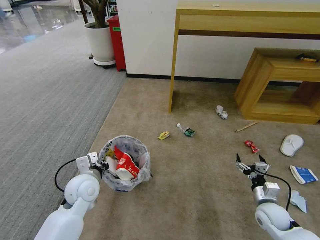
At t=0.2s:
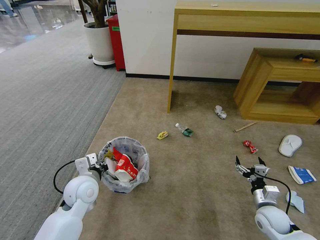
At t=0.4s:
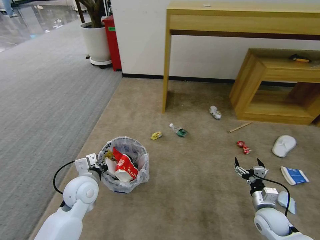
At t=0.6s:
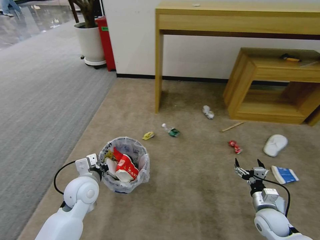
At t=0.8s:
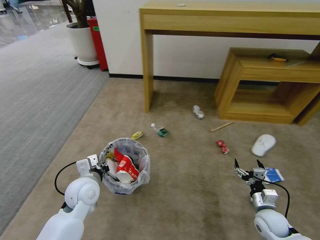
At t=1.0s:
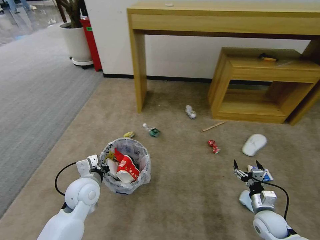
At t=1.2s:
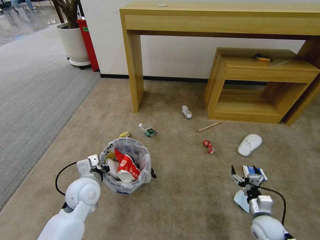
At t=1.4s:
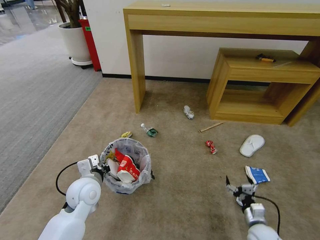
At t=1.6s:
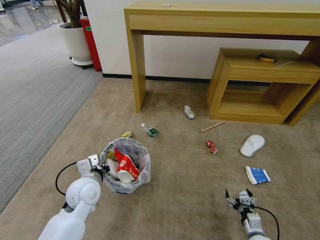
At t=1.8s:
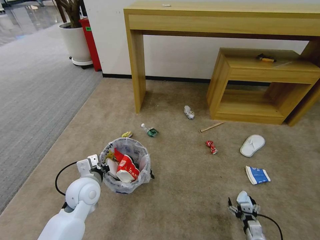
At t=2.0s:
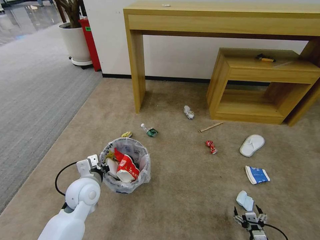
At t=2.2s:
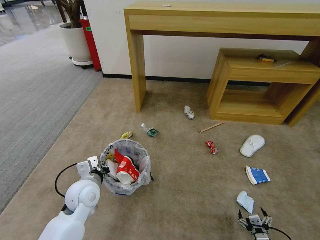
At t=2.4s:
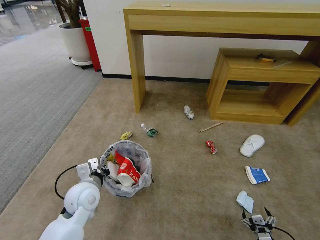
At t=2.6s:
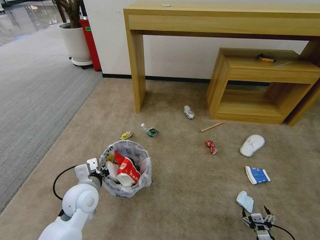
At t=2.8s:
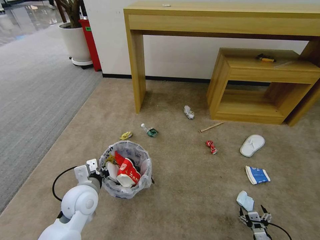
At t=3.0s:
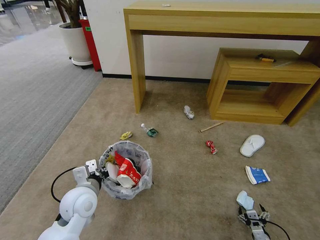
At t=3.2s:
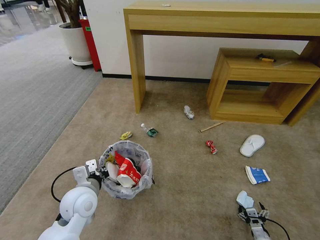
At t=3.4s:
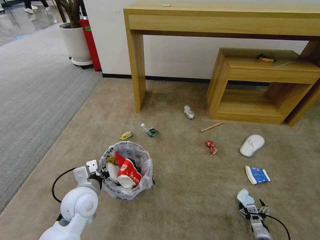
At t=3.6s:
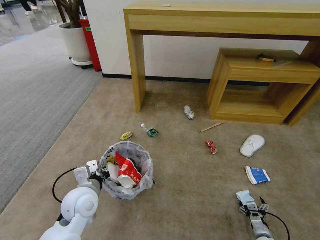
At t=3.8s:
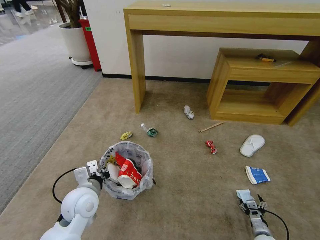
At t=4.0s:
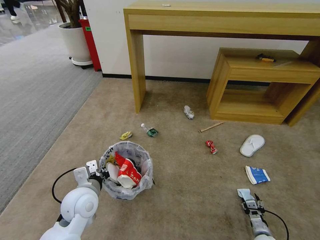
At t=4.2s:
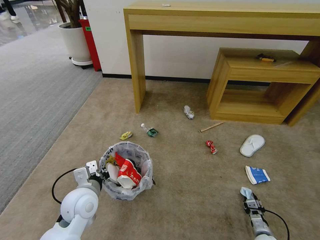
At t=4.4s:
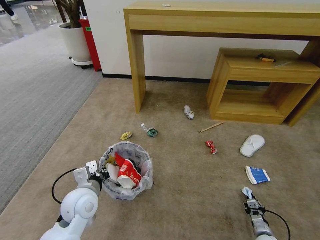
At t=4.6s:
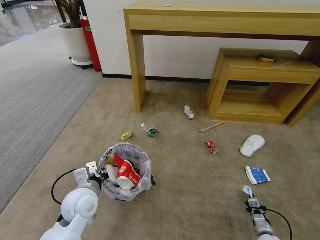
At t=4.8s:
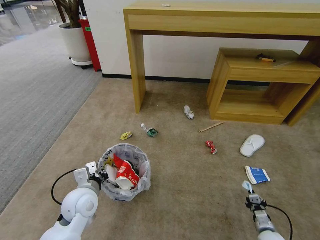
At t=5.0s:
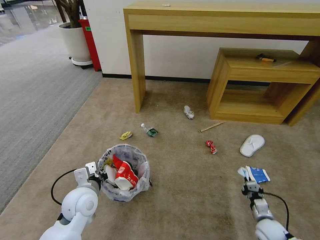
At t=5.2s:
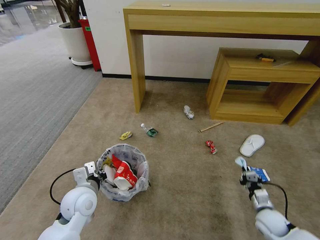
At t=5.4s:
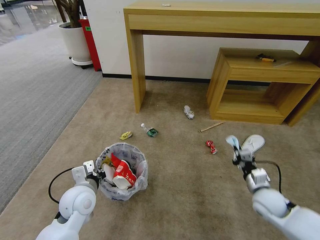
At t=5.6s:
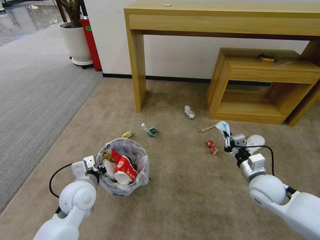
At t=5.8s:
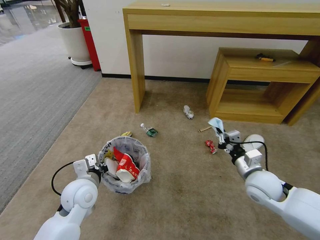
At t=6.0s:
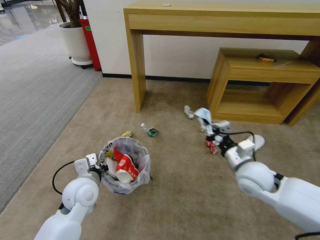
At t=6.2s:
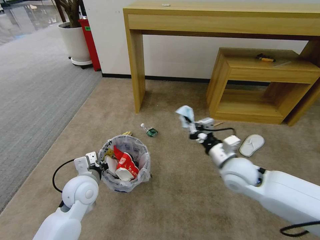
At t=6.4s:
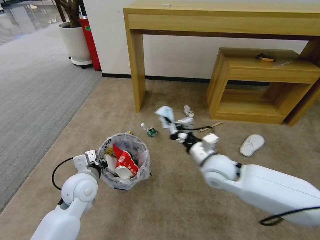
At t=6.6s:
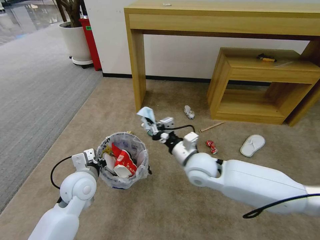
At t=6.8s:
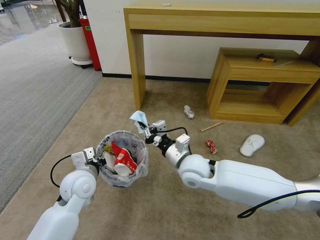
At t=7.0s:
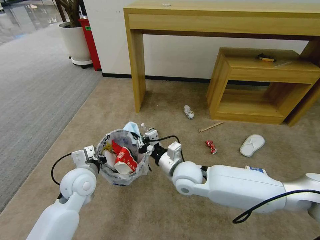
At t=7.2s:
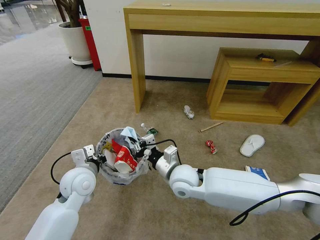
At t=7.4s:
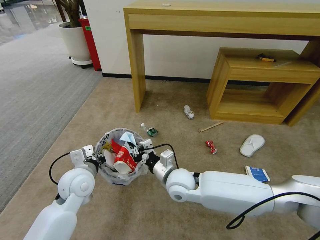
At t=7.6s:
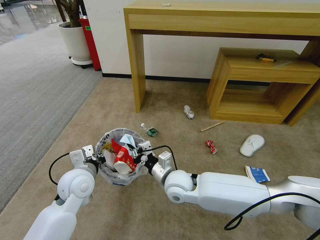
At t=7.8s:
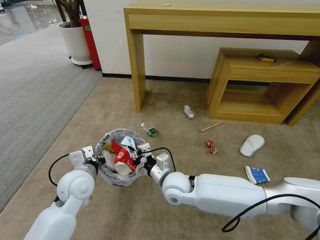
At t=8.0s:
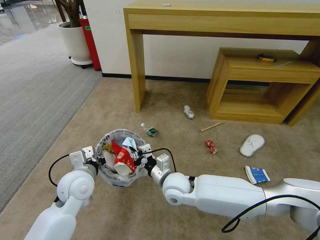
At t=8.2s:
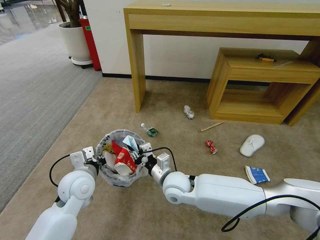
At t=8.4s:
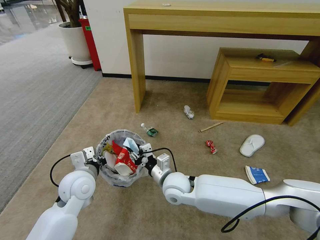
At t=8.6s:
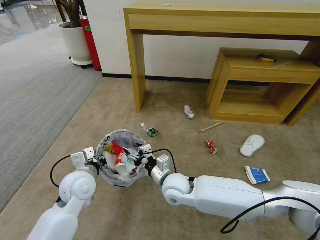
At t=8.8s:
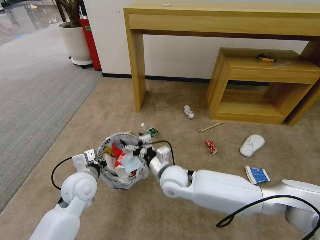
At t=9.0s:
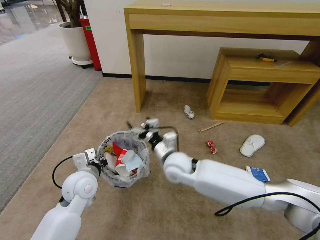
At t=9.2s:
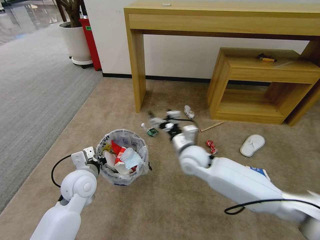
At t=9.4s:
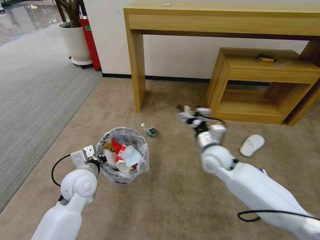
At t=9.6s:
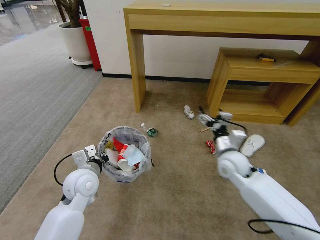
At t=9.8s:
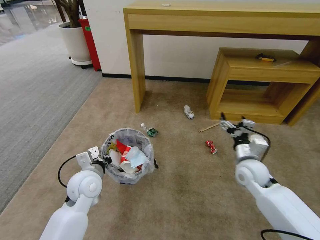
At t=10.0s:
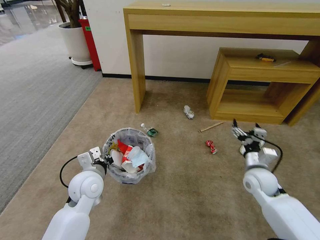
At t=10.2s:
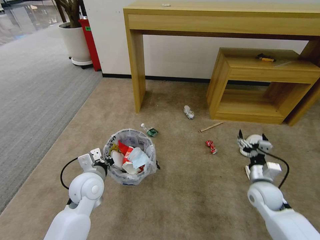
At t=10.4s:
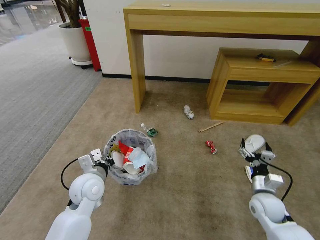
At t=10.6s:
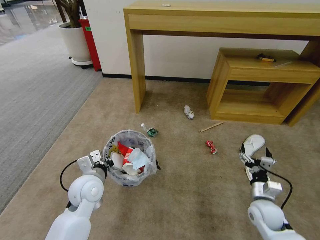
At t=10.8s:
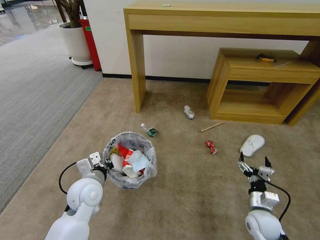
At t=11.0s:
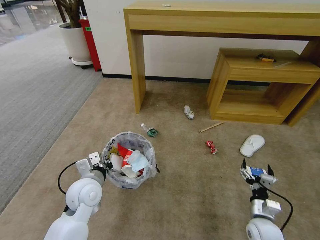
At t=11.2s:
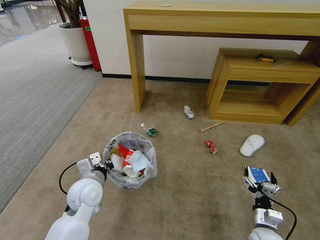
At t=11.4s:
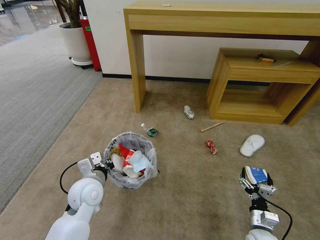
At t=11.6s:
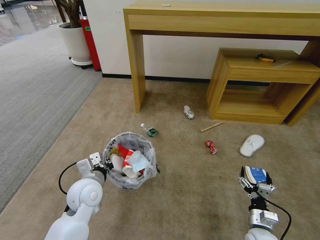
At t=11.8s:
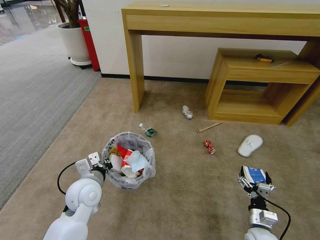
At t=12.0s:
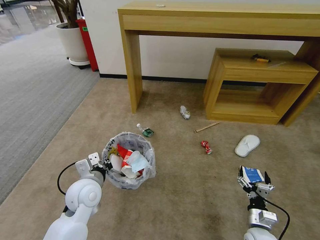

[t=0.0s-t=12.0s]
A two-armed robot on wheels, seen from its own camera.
Task of the whole recording: Pick up the trash bin and place the garbage on the floor into it.
t=0.0s to t=1.6s: The right gripper heads downward and backward, covering some 15 cm.
t=1.6s to t=3.0s: The right gripper moves downward, approximately 5 cm.
t=3.0s to t=4.4s: The right gripper shifts by roughly 5 cm, and closes its fingers.
t=4.4s to t=6.0s: The right gripper travels upward and to the left by about 40 cm.
t=6.0s to t=7.6s: The right gripper travels to the left by roughly 20 cm.
t=7.6s to t=9.0s: The right gripper changes place by roughly 5 cm, and opens.
t=9.0s to t=10.4s: The right gripper travels to the right by approximately 30 cm.
t=10.4s to t=12.0s: The right gripper heads downward and backward, covering approximately 15 cm.

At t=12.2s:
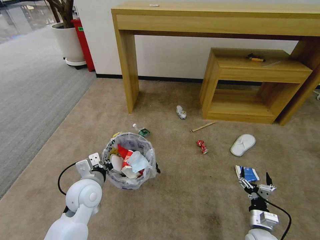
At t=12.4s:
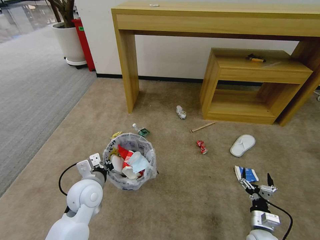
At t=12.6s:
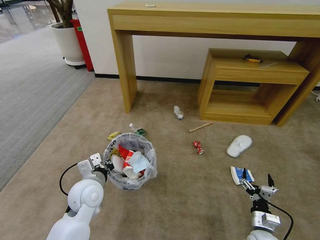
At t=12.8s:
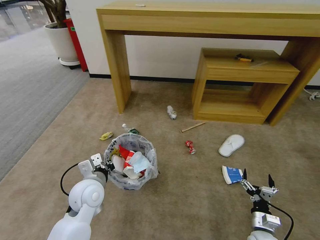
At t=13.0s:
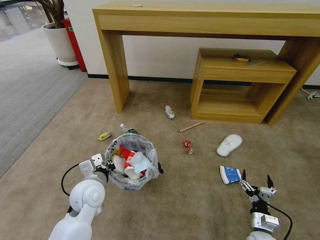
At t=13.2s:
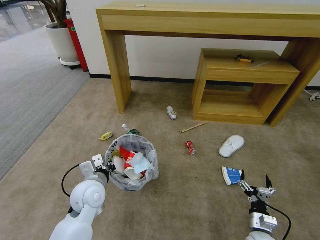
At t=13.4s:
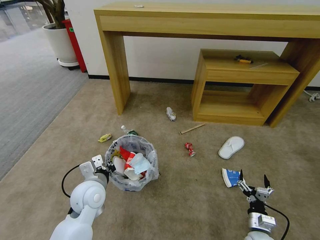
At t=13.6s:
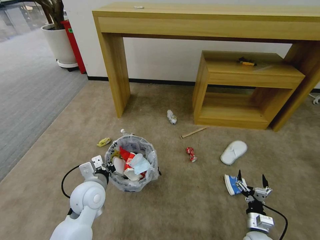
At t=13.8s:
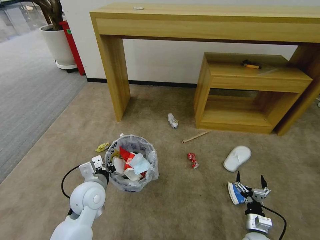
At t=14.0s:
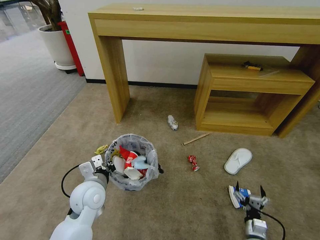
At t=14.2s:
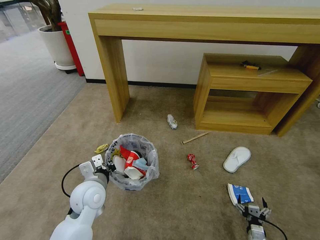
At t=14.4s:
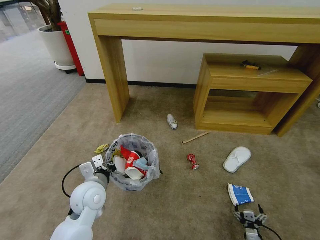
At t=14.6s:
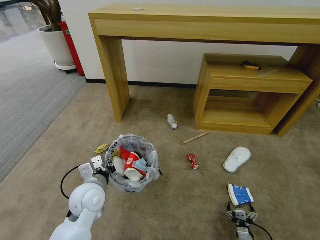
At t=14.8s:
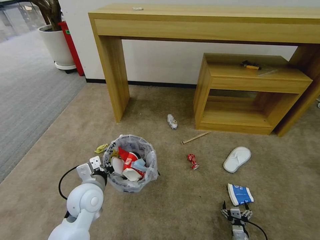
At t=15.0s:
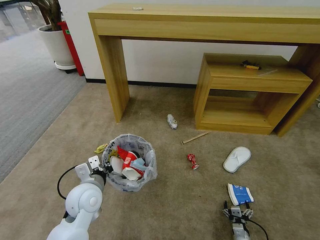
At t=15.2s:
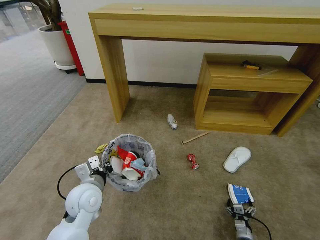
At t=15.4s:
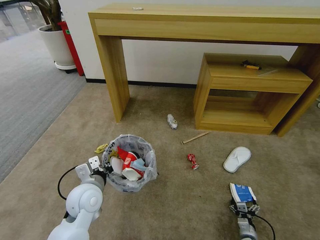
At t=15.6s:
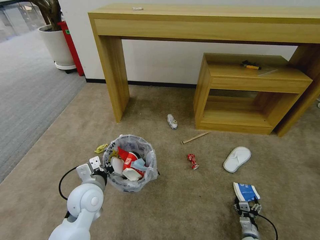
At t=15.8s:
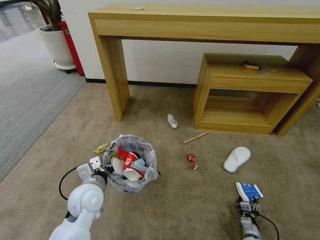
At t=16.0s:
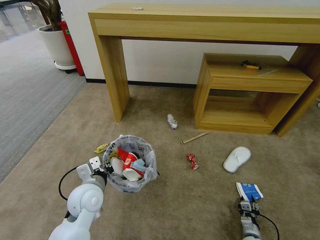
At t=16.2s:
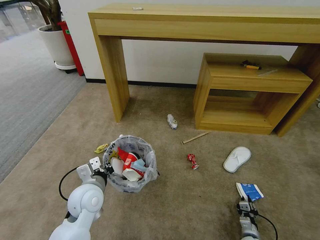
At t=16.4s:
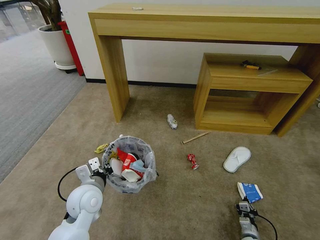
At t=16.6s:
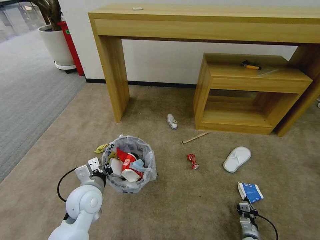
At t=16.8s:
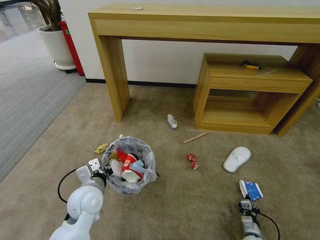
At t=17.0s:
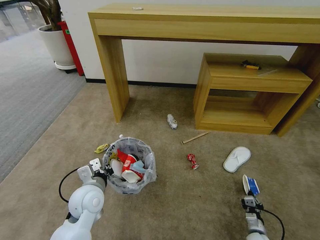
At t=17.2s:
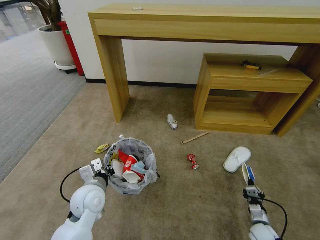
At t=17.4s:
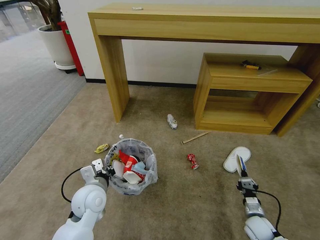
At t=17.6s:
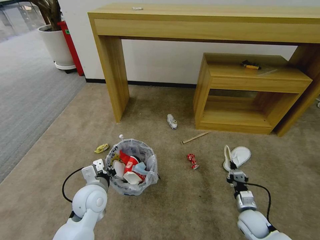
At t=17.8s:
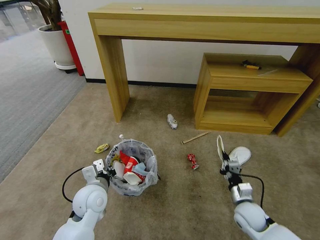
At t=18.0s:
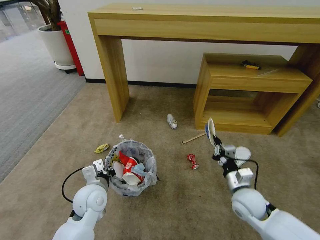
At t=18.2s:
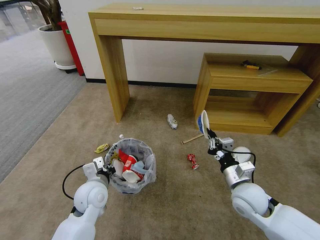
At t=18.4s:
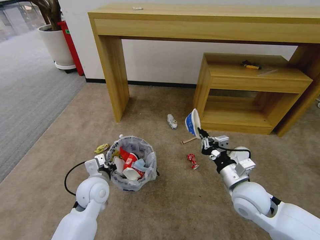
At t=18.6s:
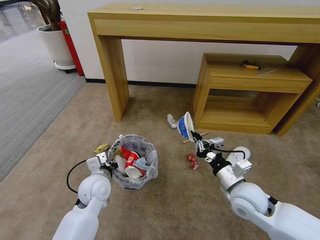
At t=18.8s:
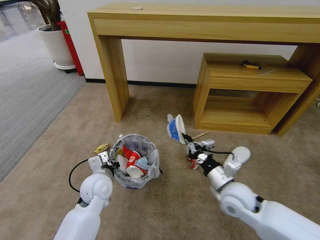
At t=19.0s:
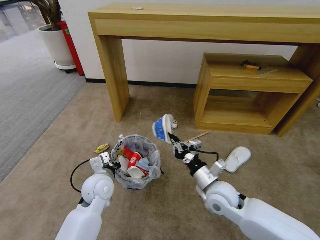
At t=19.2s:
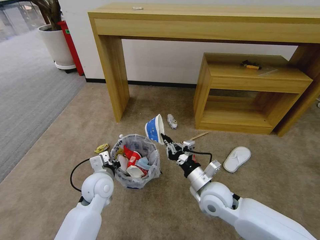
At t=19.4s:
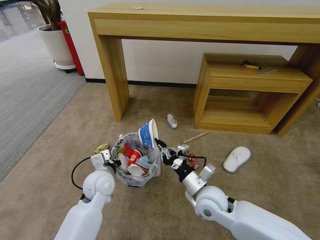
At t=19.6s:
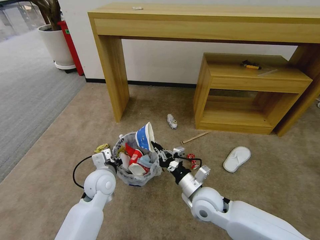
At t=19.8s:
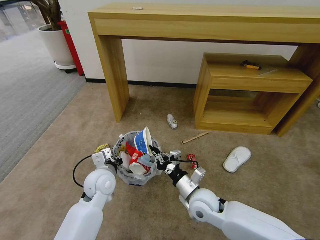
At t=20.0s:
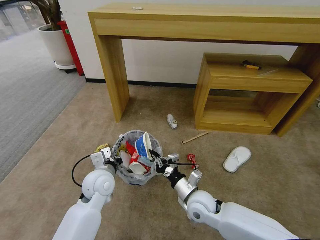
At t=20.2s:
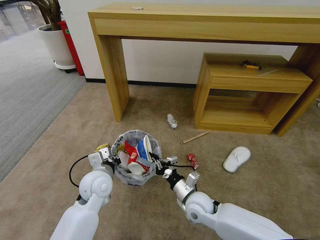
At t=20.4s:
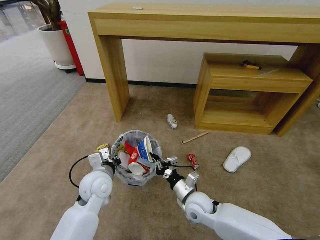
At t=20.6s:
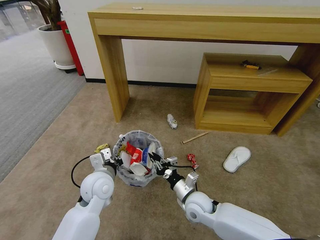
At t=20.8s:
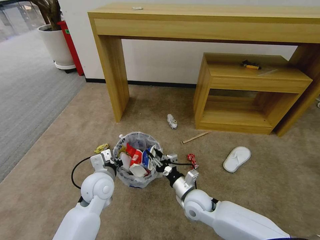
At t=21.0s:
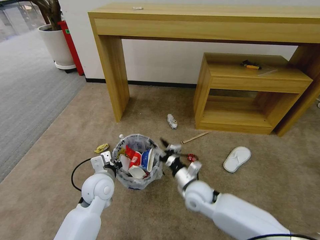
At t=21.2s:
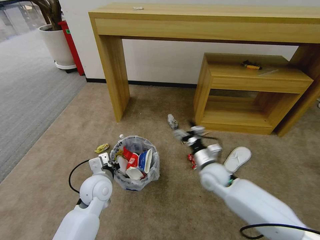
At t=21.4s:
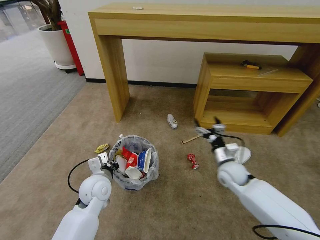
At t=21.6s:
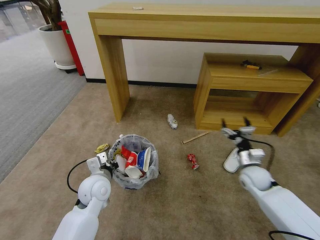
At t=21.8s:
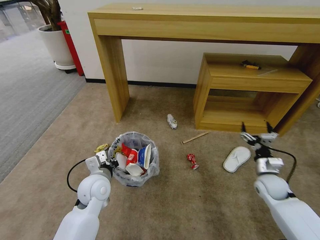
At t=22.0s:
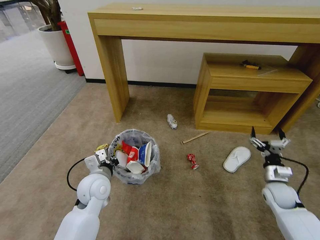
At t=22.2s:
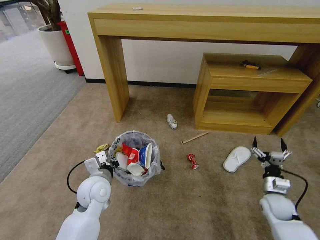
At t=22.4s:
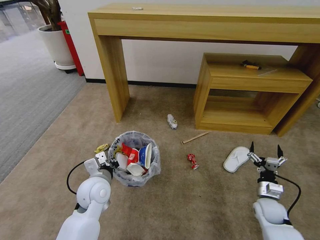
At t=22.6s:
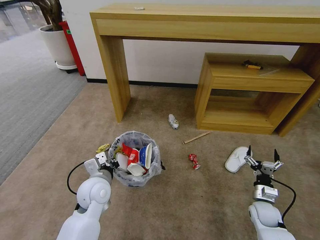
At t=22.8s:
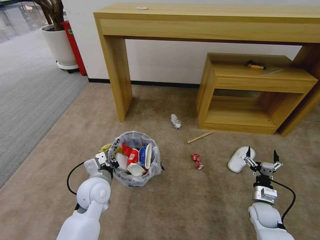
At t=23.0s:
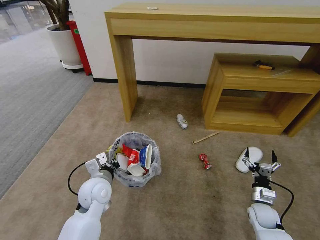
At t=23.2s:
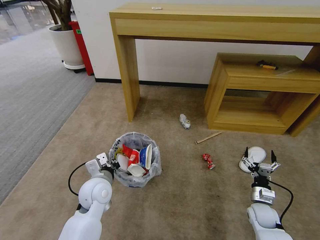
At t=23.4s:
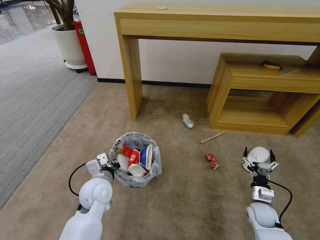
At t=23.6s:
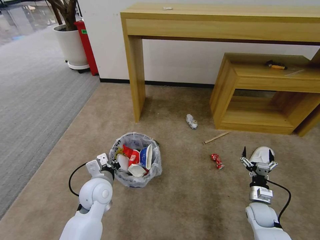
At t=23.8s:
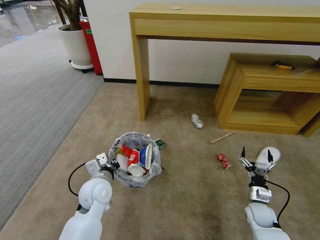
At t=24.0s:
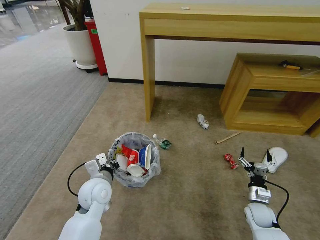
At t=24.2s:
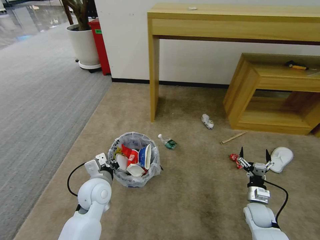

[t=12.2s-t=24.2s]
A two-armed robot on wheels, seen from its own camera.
Task of the whole recording: Pick up the trash bin and place the garbage on the floor into it.
t=13.8s to t=15.2s: The right gripper moves downward, some 10 cm.
t=15.2s to t=16.6s: The right gripper closes.
t=16.6s to t=18.2s: The right gripper moves upward, approximately 30 cm.
t=18.2s to t=19.8s: The right gripper shifts some 15 cm to the left.
t=19.8s to t=21.2s: The right gripper travels forward and to the right by about 10 cm, and opens its fingers.
t=21.2s to t=22.6s: The right gripper travels to the right, downward and backward by about 25 cm.
